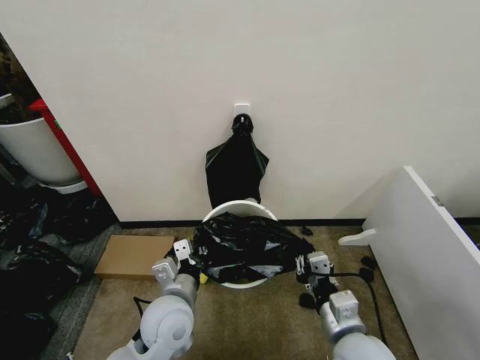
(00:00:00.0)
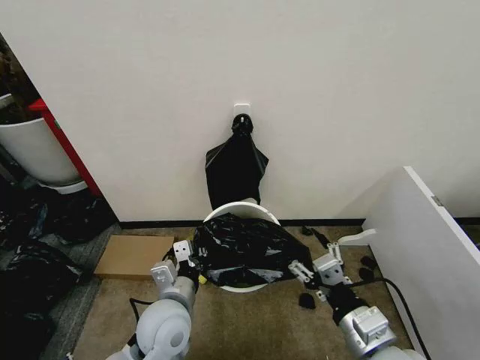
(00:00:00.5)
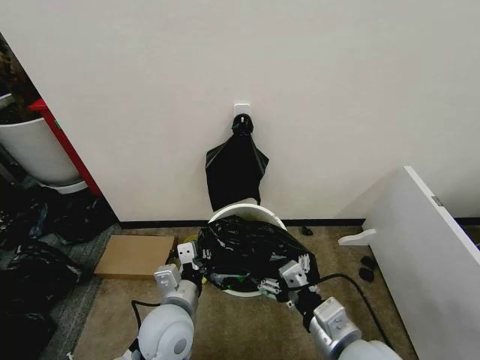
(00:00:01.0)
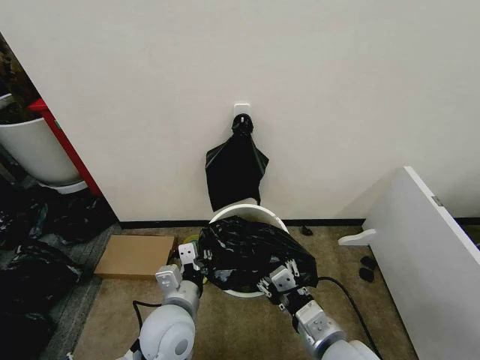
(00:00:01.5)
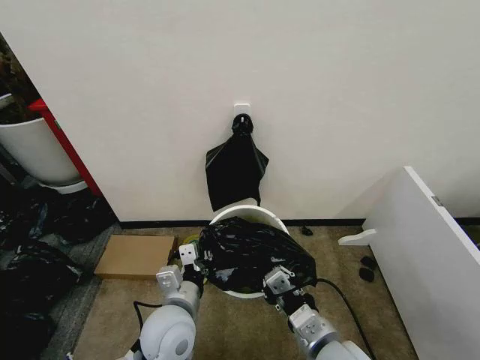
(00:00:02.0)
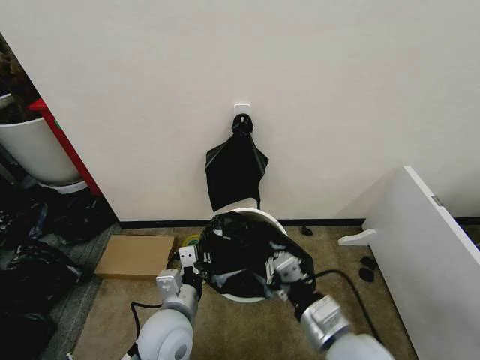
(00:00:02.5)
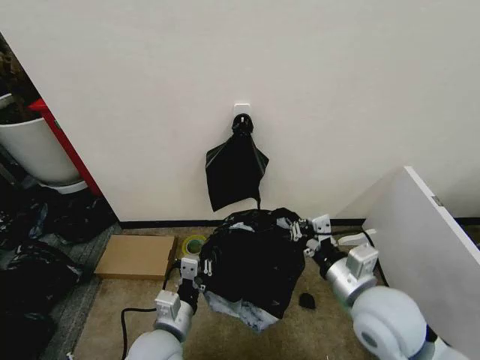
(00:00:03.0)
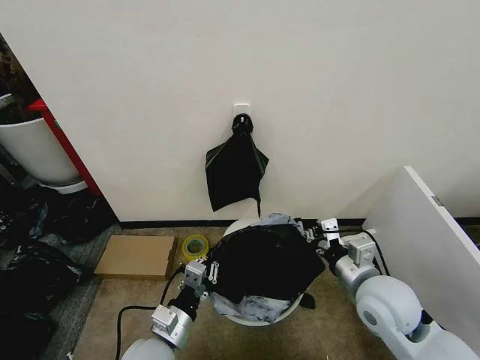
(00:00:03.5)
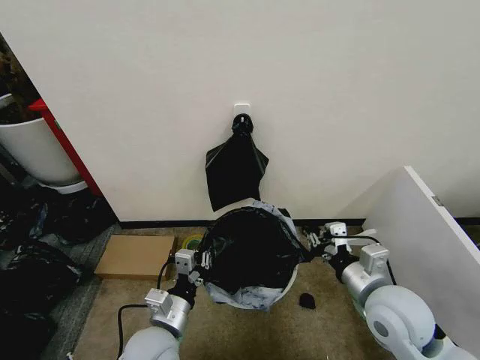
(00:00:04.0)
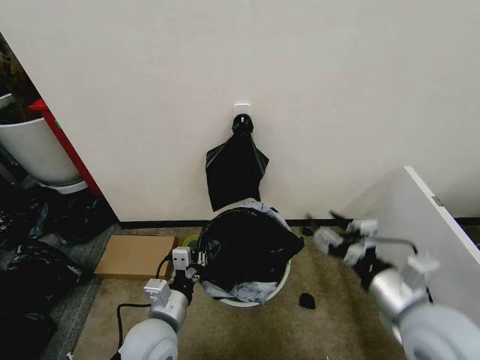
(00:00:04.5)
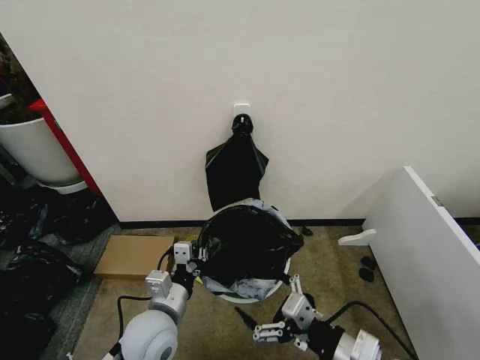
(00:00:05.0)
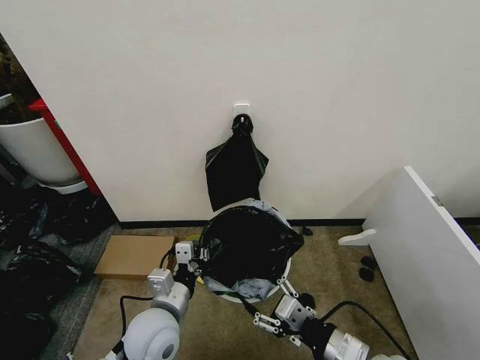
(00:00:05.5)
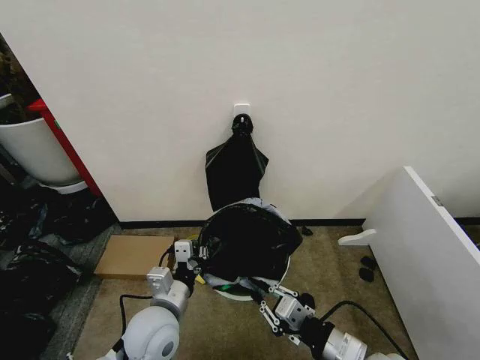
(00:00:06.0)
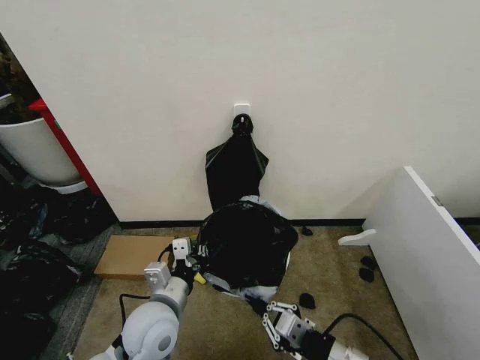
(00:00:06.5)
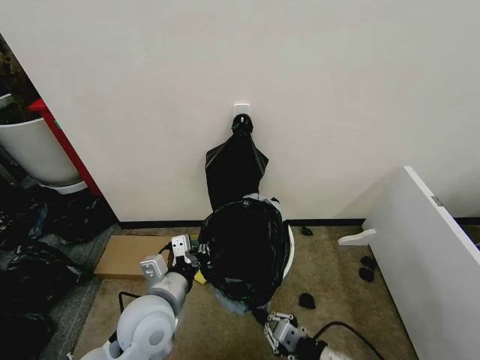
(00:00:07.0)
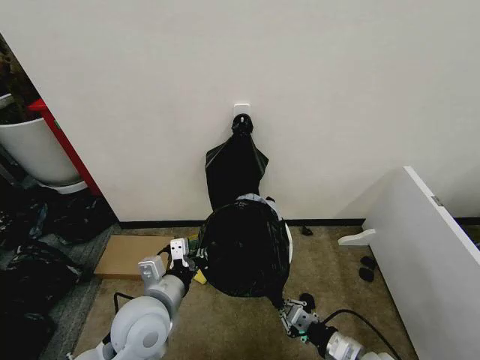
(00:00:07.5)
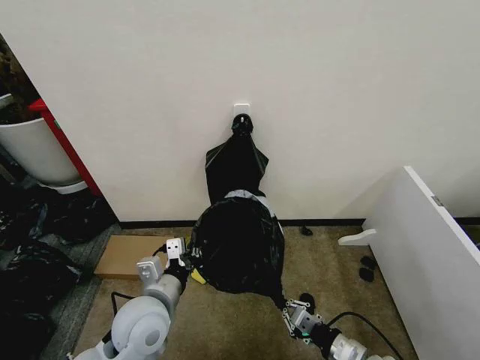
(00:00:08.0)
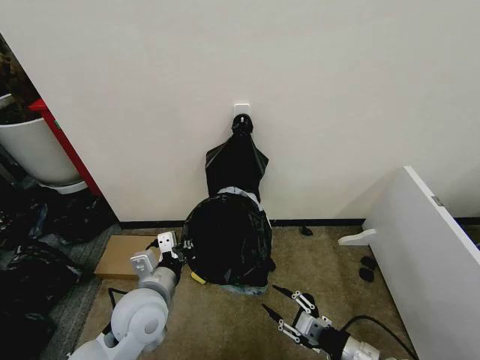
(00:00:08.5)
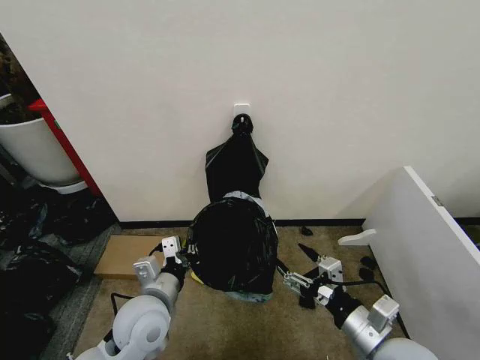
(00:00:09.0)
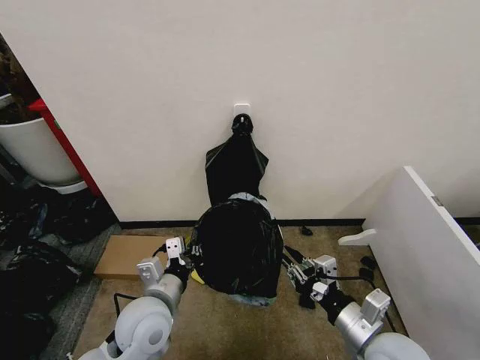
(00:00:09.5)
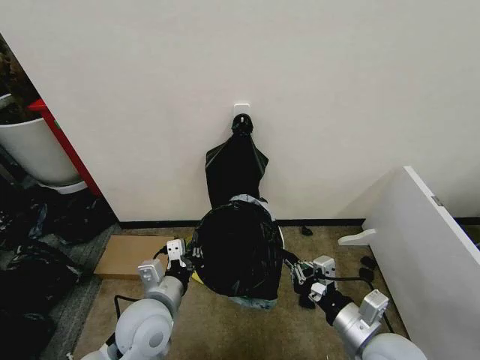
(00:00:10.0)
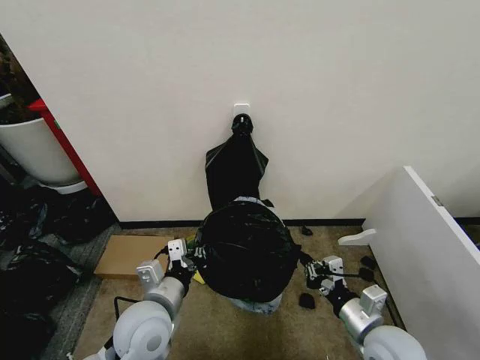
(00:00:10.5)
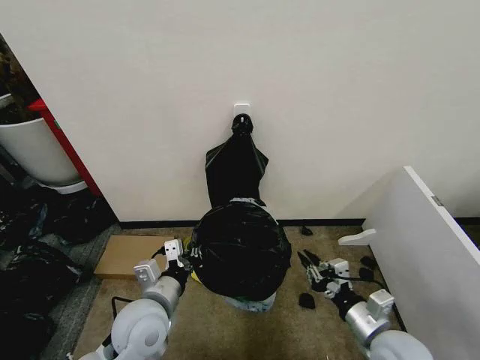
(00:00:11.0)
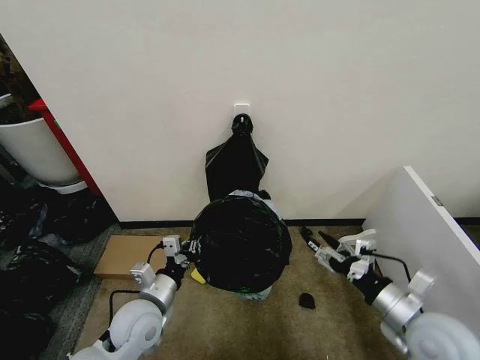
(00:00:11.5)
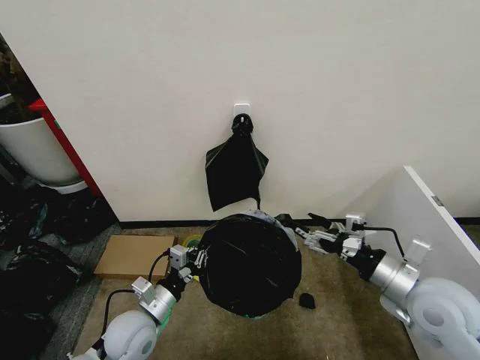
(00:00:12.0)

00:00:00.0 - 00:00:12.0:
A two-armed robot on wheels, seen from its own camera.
Task of the whole recording: Place the garbage bag over the trash bin.
00:00:00.0 - 00:00:02.0: The right gripper opens, then closes once more.
00:00:02.0 - 00:00:04.0: The left gripper ends up approximately 5 cm from where it was; the right gripper travels to the right and forward by roughly 15 cm.
00:00:04.0 - 00:00:06.0: The right gripper moves backward, roughly 10 cm, and opens, then closes again.
00:00:06.0 - 00:00:08.0: The right gripper travels downward by about 10 cm.
00:00:08.0 - 00:00:10.0: The right gripper goes about 10 cm upward, and opens, then closes once more.
00:00:10.0 - 00:00:12.0: The left gripper goes approximately 10 cm downward and to the left. The right gripper shifts about 15 cm upward, to the right and forward, and opens.

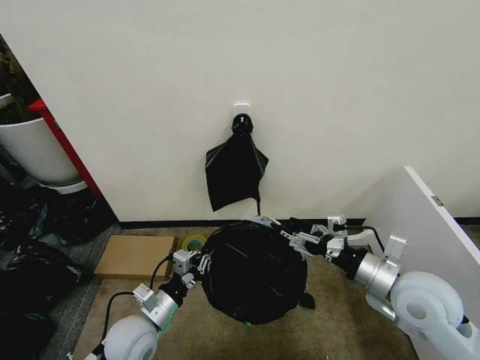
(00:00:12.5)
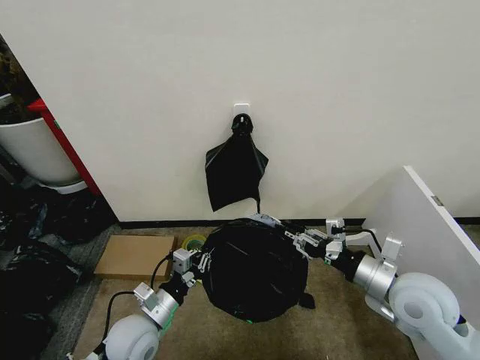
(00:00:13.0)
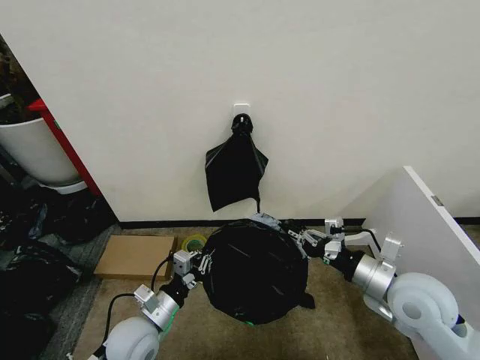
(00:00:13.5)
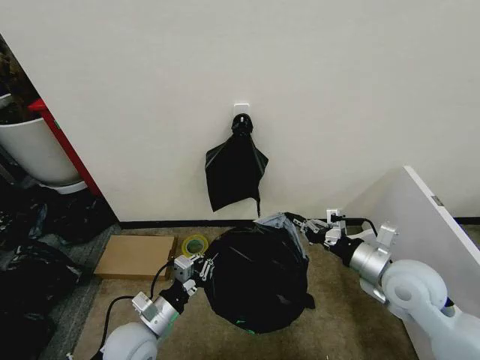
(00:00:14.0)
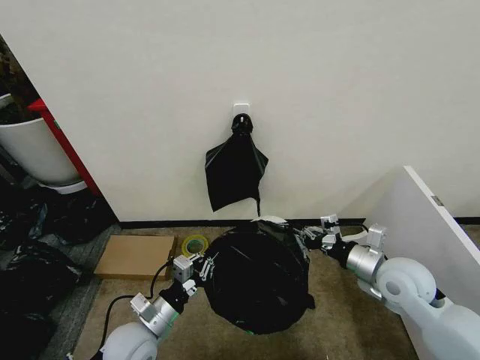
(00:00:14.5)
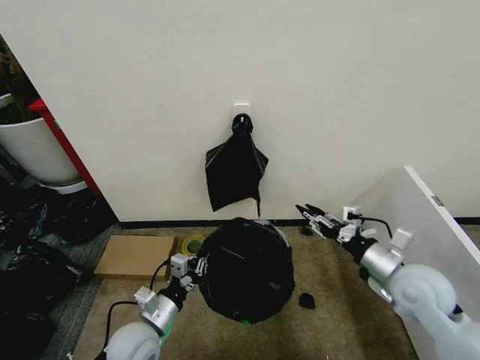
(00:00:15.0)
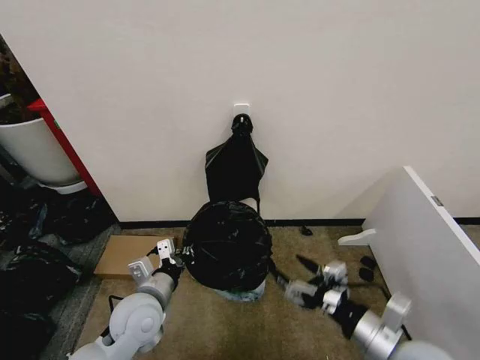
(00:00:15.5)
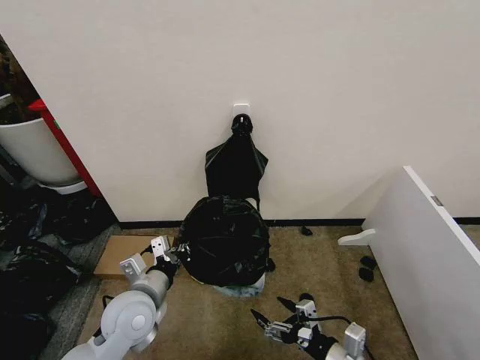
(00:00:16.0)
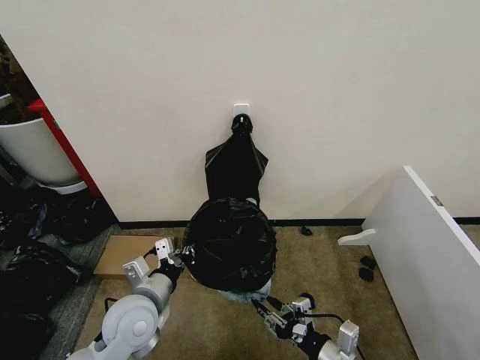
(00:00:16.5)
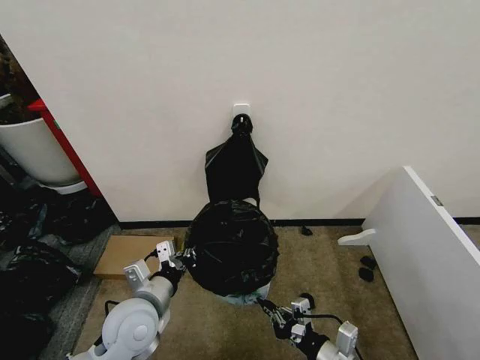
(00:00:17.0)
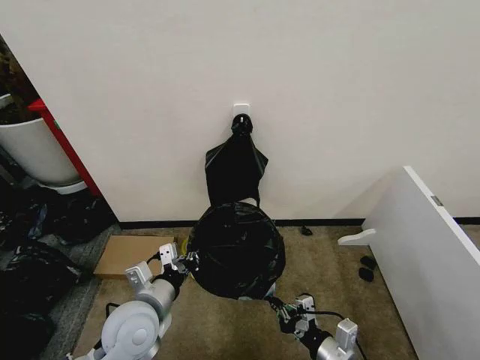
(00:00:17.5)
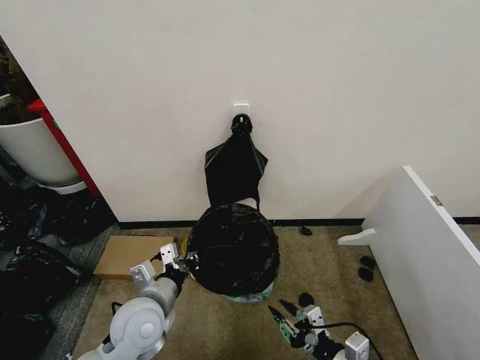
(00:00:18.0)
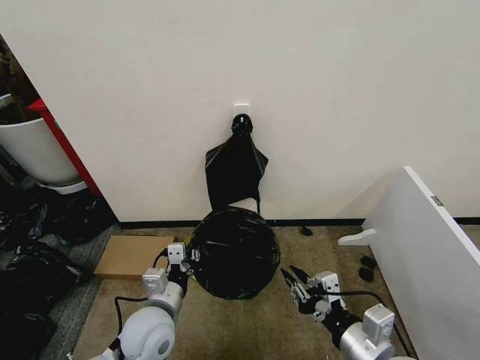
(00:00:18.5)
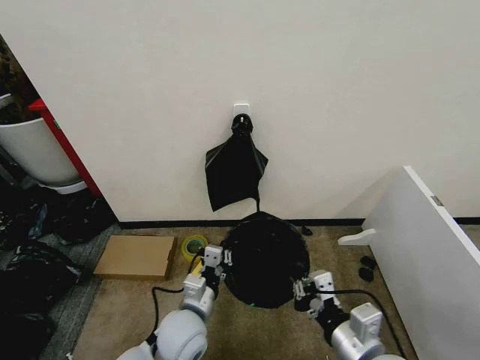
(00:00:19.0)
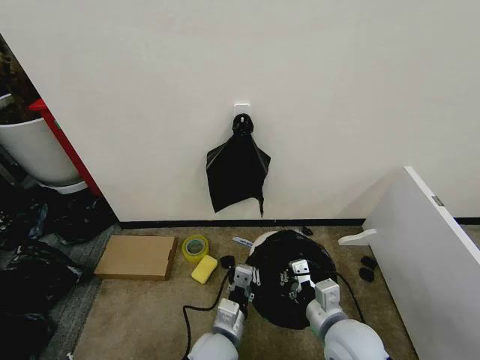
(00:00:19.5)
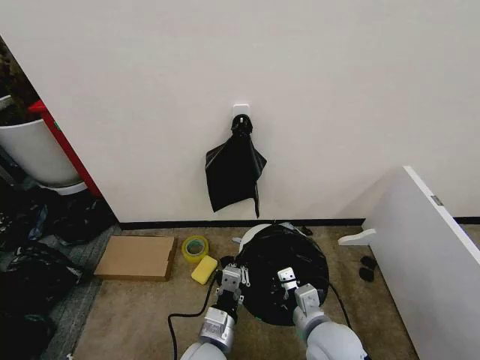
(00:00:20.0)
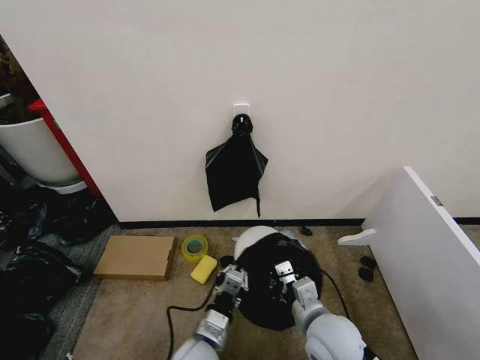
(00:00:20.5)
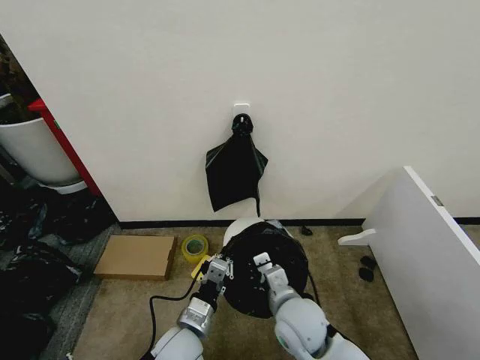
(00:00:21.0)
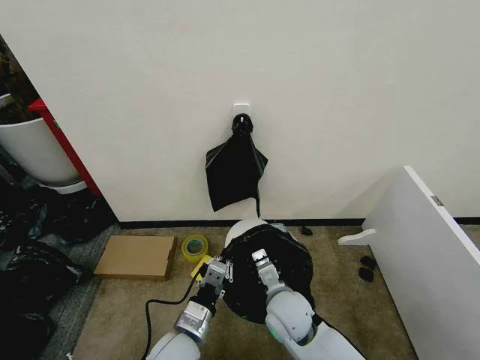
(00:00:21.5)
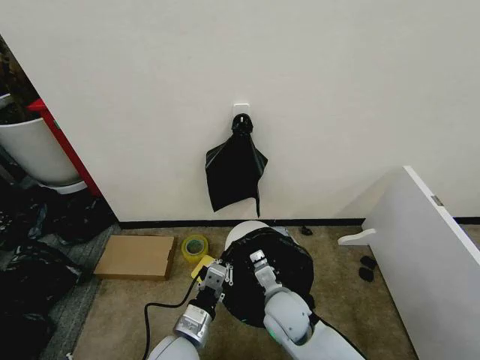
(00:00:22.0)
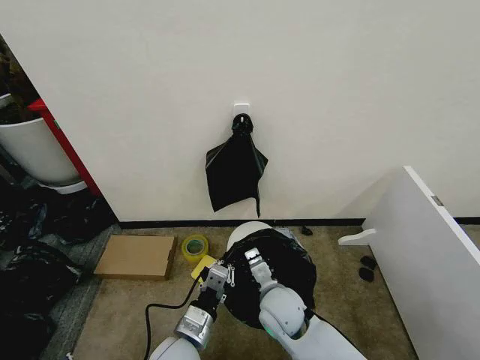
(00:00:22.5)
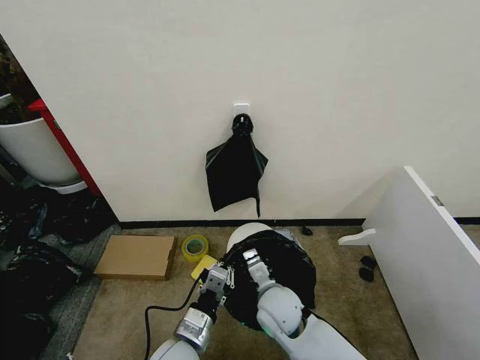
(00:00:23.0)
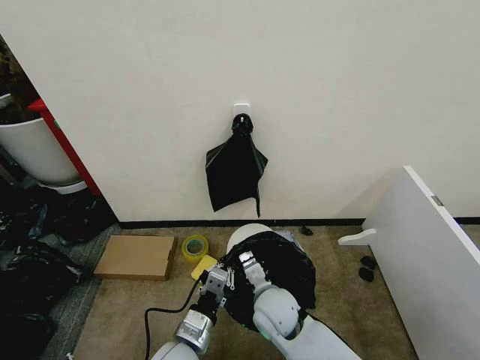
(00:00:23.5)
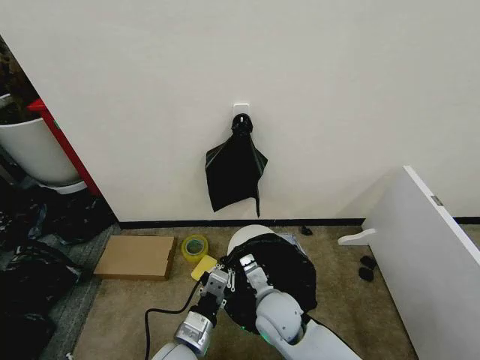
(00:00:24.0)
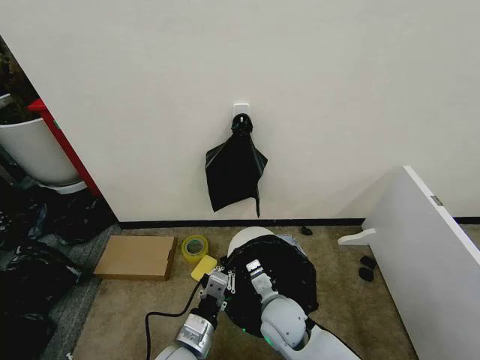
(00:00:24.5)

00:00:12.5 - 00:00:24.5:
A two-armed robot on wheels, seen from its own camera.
Task of the whole recording: Place the garbage bag over the trash bin.
00:00:12.5 - 00:00:14.5: The right gripper is displaced forward by approximately 5 cm, and closes up.
00:00:14.5 - 00:00:16.5: The right gripper is displaced backward, downward and to the left by some 20 cm, and opens its fingers; the left gripper travels upward by roughly 5 cm.
00:00:16.5 - 00:00:18.5: The right gripper heads upward, covering some 10 cm.
00:00:18.5 - 00:00:20.5: The left gripper is displaced to the right and downward by approximately 10 cm. The right gripper is displaced forward, to the left and downward by roughly 10 cm.
00:00:20.5 - 00:00:22.5: The right gripper shifts approximately 10 cm to the left and forward. Meanwhile the left gripper ends up approximately 5 cm from where it was.
00:00:22.5 - 00:00:24.5: There are only small adjustments of the grippers.

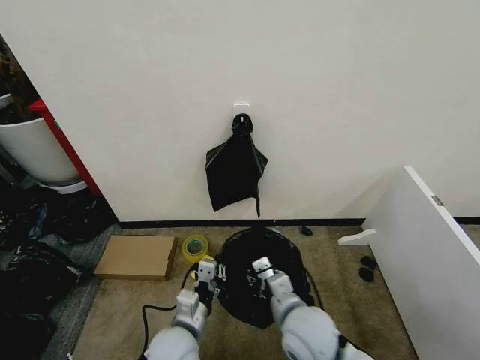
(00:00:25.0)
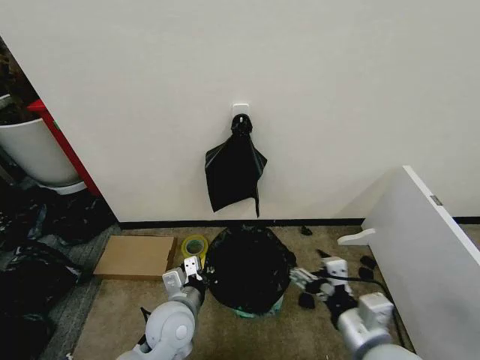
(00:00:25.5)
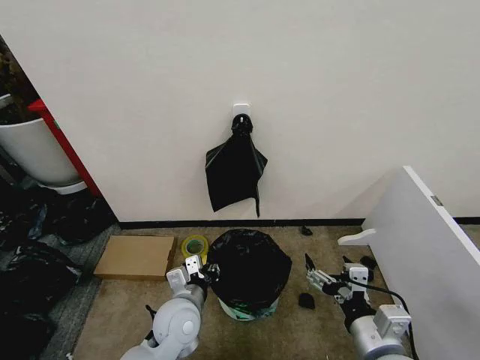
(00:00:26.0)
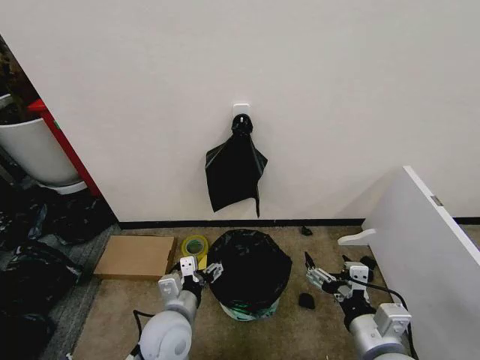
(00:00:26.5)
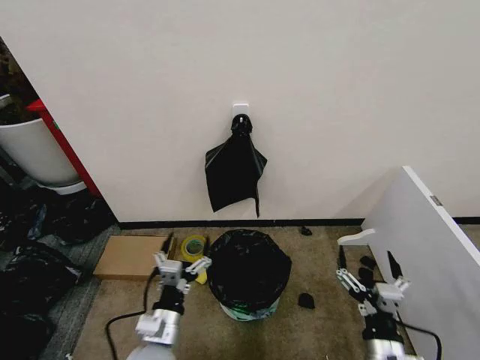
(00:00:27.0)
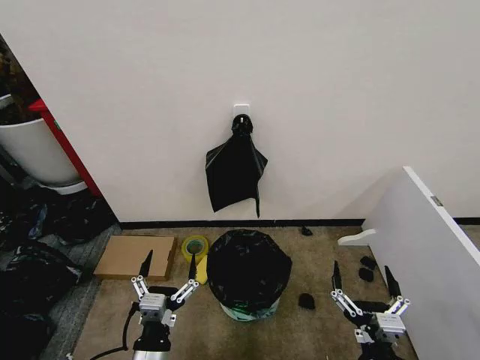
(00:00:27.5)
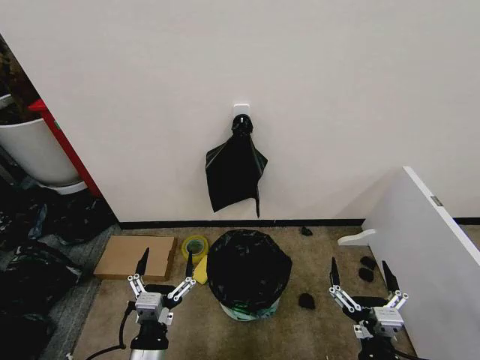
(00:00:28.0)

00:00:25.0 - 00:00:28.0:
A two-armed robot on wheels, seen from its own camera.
Task of the whole recording: Place the garbage bag over the trash bin.
00:00:25.0 - 00:00:26.5: The right gripper shifts approximately 15 cm to the right and backward, and opens up. Meanwhile the left gripper opens up.
00:00:26.5 - 00:00:28.0: The right gripper shifts some 10 cm downward and backward, while the left gripper moves backward, some 10 cm.
